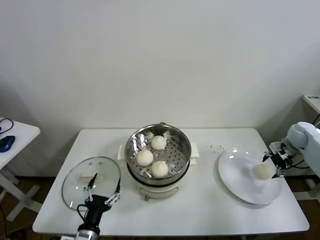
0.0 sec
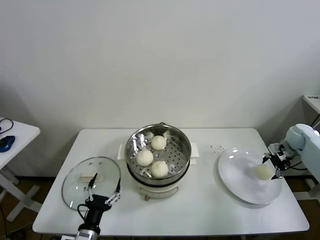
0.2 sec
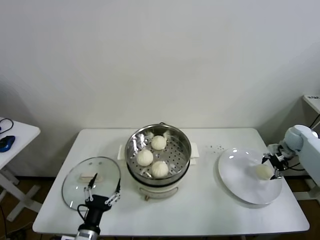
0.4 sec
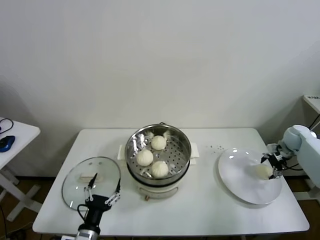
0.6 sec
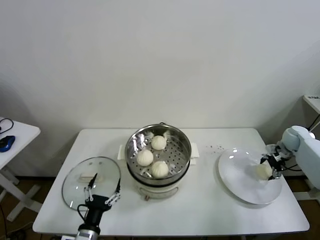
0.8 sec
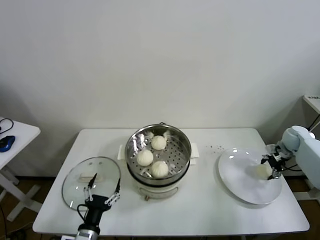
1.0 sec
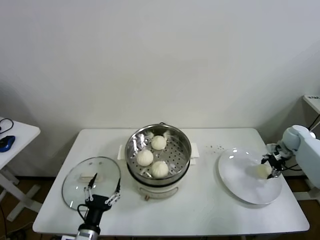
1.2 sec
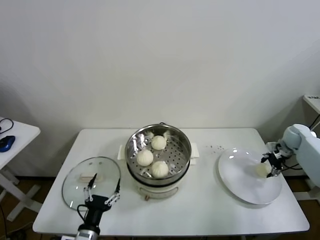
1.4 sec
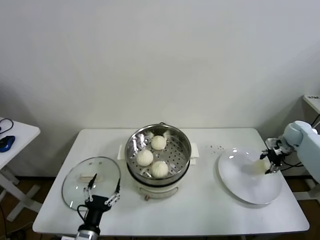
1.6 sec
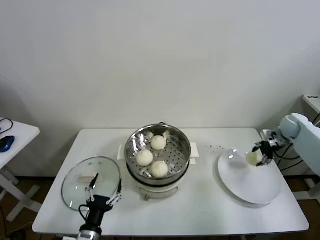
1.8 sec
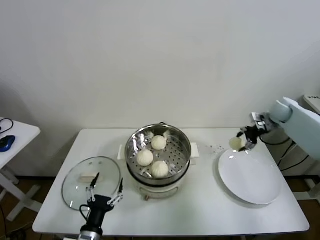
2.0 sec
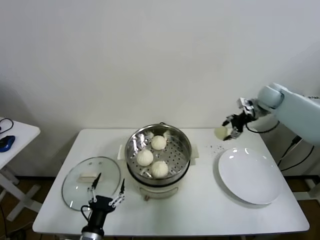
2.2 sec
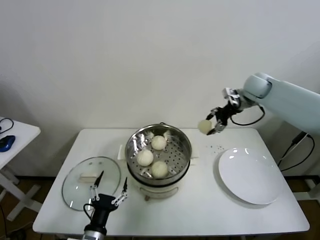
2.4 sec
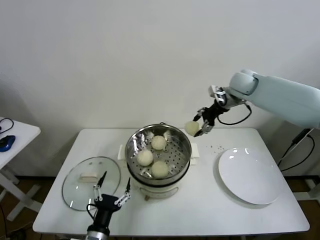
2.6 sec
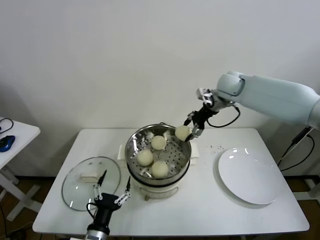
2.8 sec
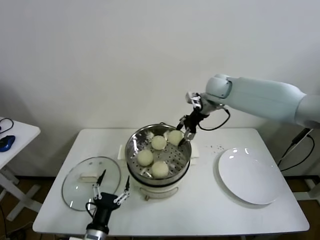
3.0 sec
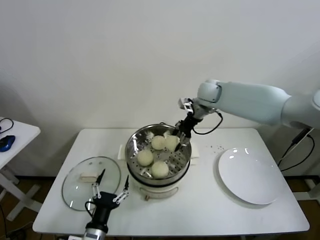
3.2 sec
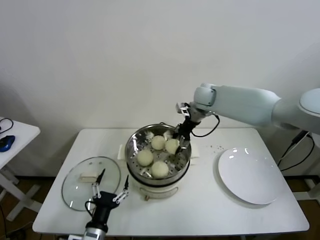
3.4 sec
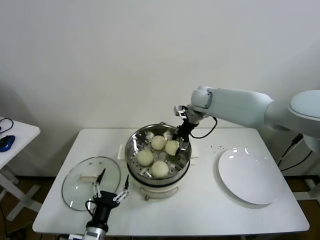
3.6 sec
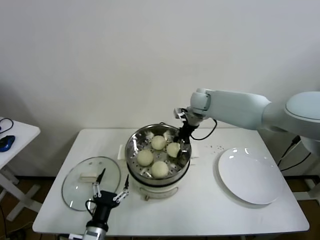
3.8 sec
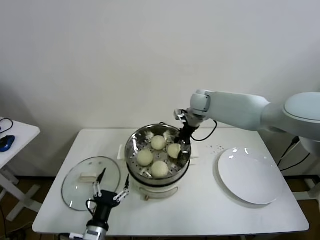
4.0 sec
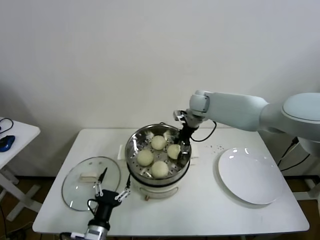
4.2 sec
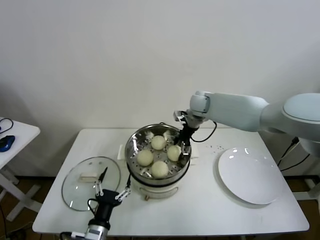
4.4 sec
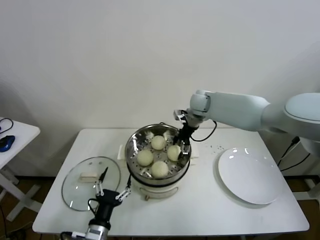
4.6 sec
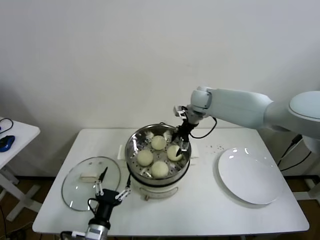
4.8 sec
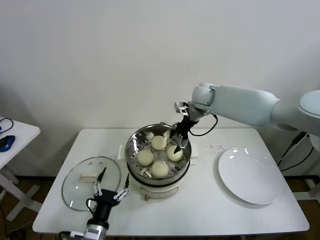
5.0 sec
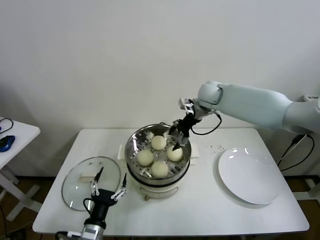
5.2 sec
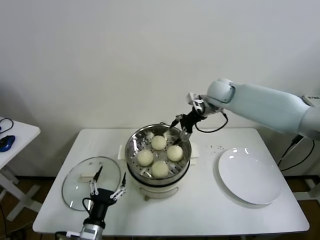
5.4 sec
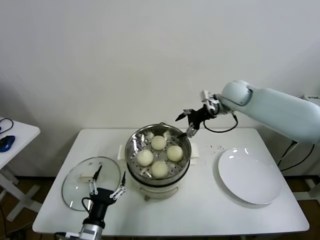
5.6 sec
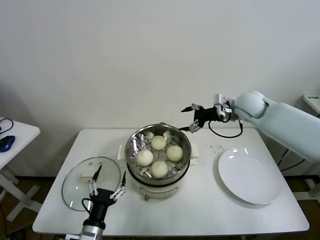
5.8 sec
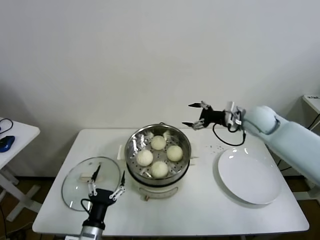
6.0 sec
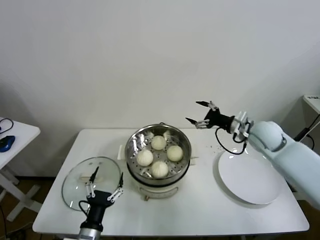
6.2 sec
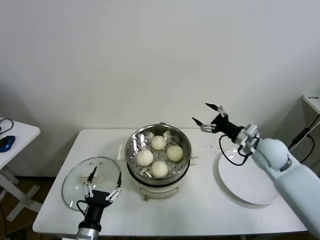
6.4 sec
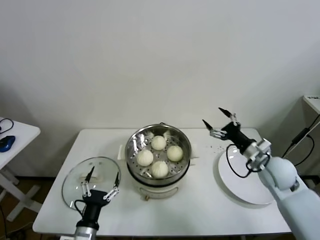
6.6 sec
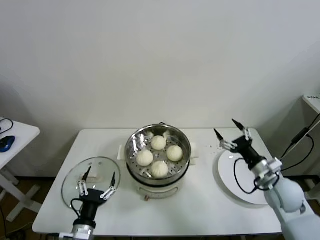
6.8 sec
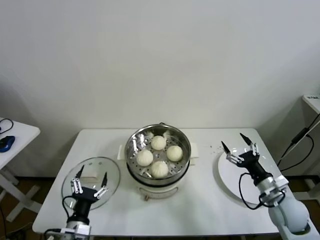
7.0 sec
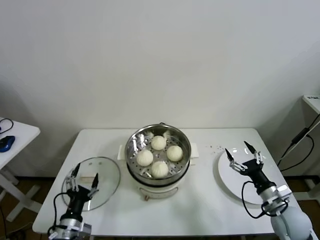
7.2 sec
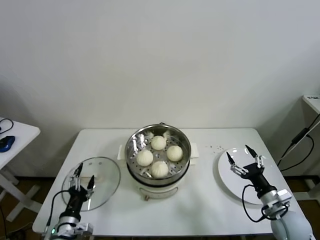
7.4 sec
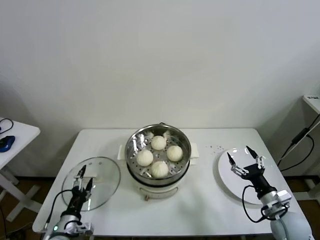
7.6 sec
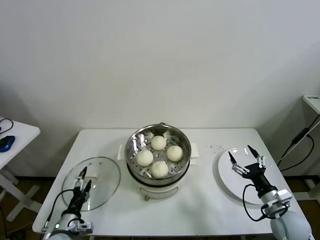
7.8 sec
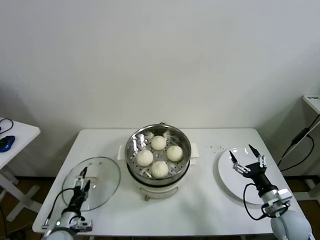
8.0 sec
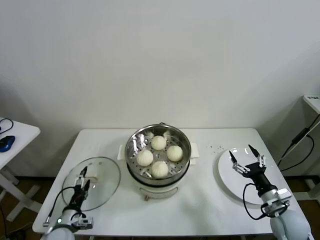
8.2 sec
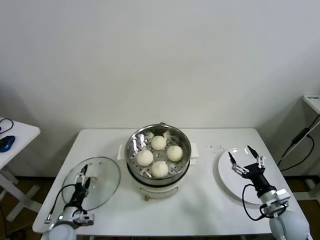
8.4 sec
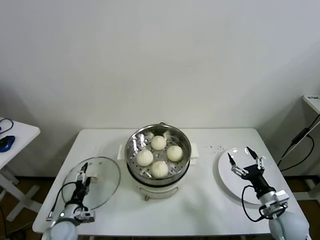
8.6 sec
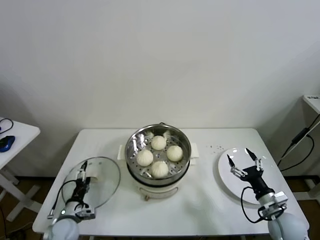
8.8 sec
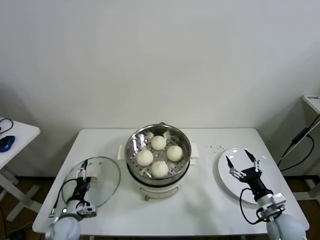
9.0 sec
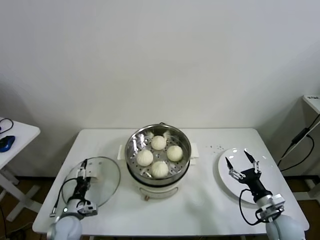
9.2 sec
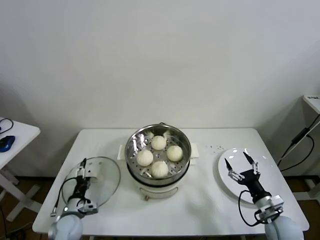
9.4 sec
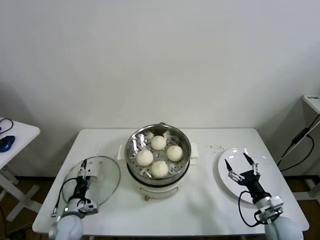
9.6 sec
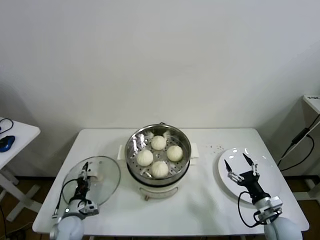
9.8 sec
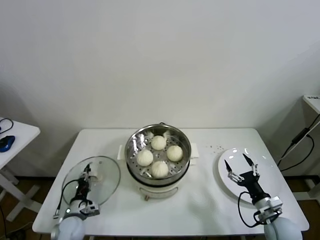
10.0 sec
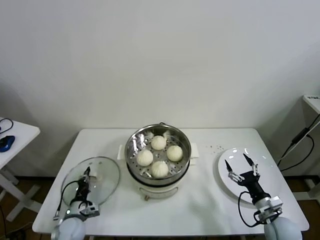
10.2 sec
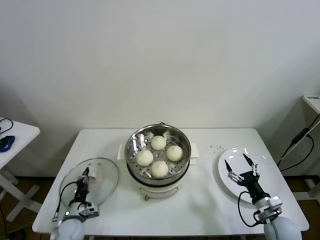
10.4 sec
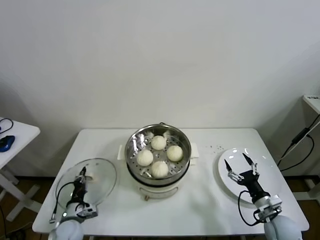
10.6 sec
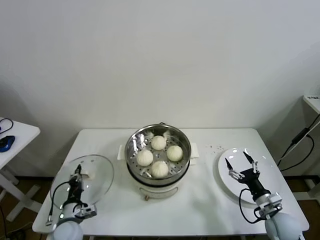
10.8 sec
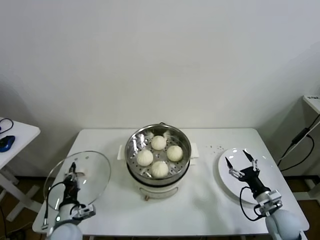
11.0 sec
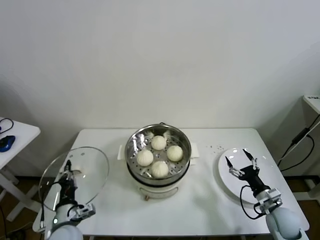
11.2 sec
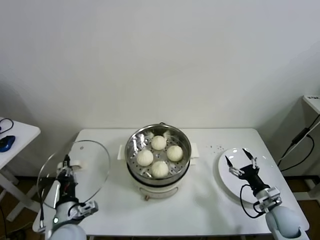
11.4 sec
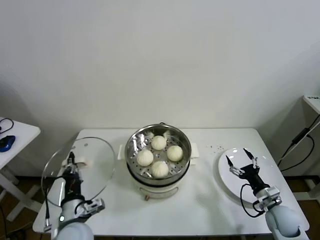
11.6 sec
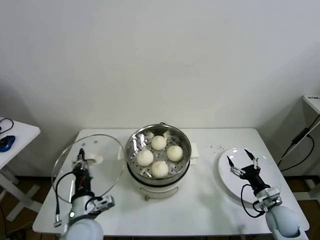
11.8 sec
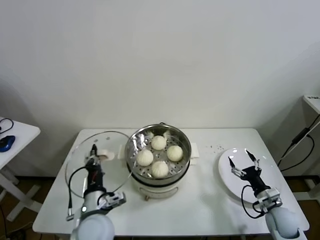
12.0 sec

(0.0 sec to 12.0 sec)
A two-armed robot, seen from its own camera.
Task of the whole recording: take steamed baozi put them in steamer.
Step, 1.2 sec - 5.0 sec: Place the baozi on the steamer with right gripper.
Step, 5.2 sec - 10.2 sec: Grasp the pot lid with left gripper.
0.0 sec - 1.6 sec: The right gripper closes.
1.6 sec - 3.0 sec: The right gripper travels to the left and upward by some 40 cm.
3.0 sec - 4.4 sec: The right gripper moves downward, roughly 5 cm, and opens its fingers.
4.4 sec - 6.0 sec: The right gripper shifts about 20 cm to the right and backward.
6.0 sec - 7.6 sec: The right gripper shifts about 35 cm backward and downward. Meanwhile the left gripper heads to the left, covering roughly 10 cm.
7.6 sec - 9.0 sec: The left gripper moves forward and downward, roughly 10 cm.
9.0 sec - 10.4 sec: The left gripper closes its fingers.
10.4 sec - 12.0 sec: The left gripper goes about 20 cm upward and to the right.

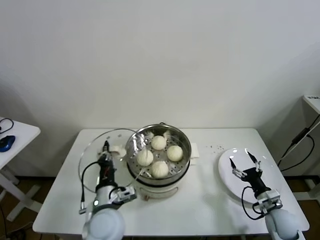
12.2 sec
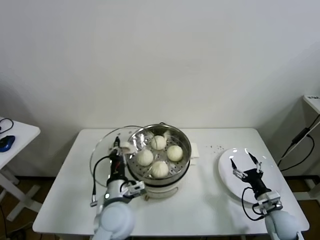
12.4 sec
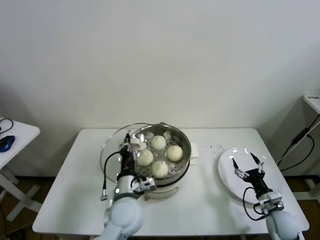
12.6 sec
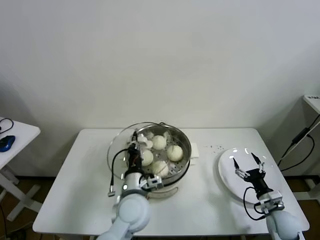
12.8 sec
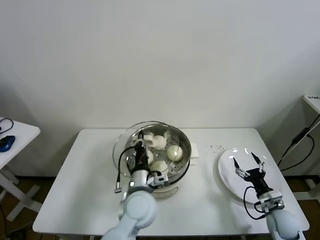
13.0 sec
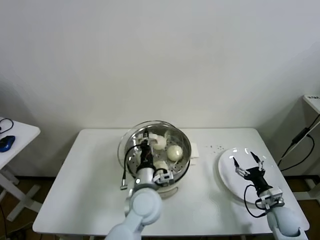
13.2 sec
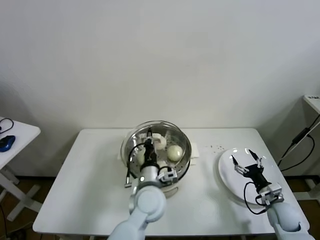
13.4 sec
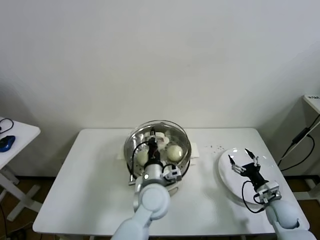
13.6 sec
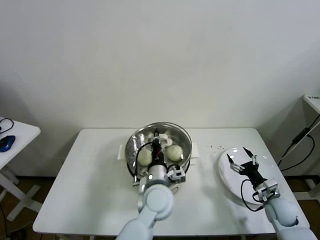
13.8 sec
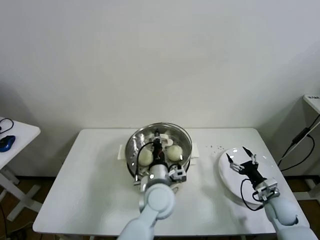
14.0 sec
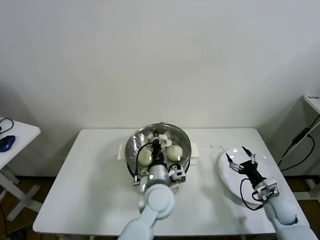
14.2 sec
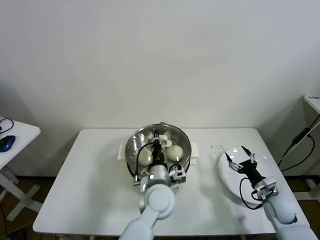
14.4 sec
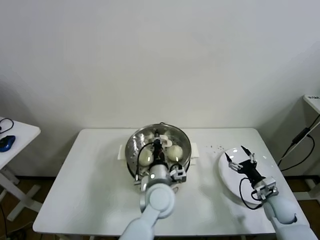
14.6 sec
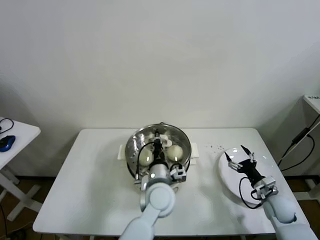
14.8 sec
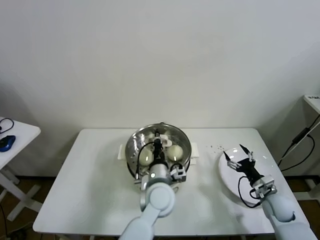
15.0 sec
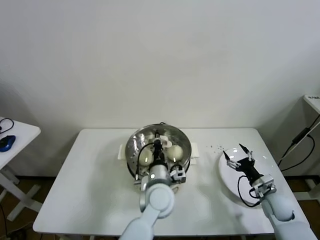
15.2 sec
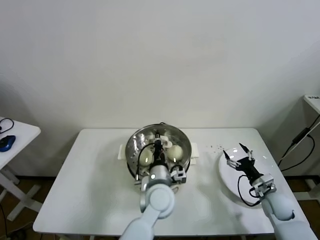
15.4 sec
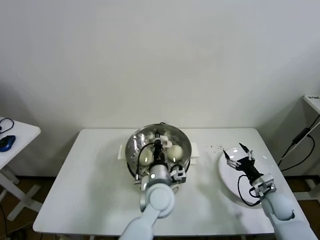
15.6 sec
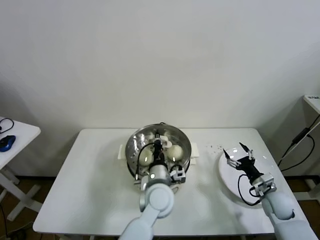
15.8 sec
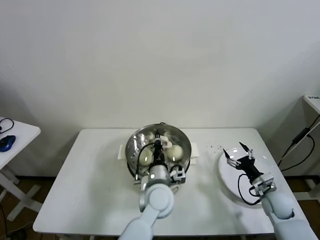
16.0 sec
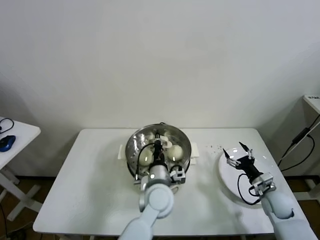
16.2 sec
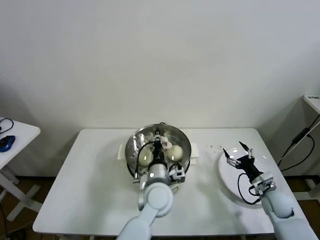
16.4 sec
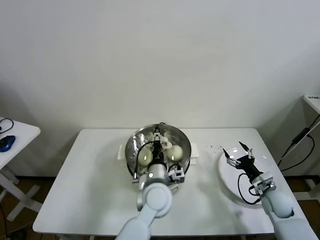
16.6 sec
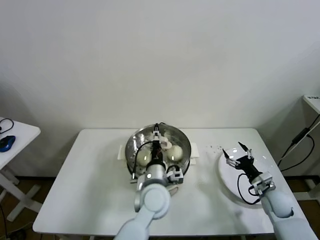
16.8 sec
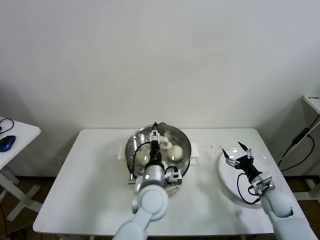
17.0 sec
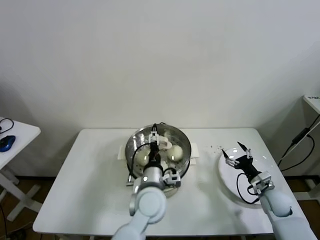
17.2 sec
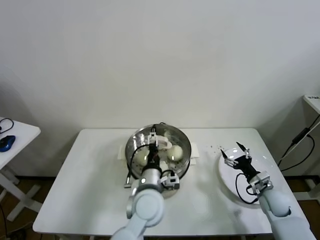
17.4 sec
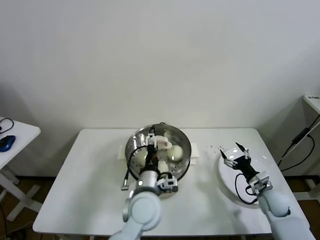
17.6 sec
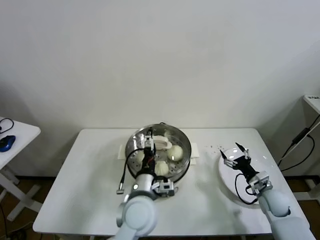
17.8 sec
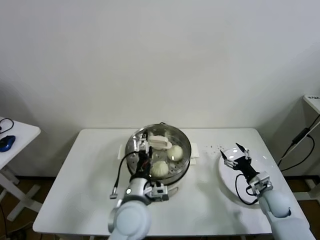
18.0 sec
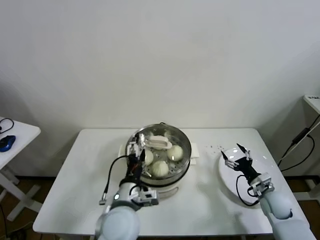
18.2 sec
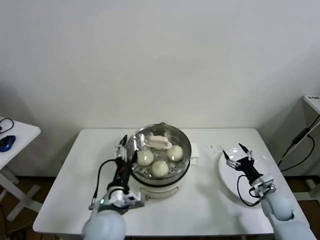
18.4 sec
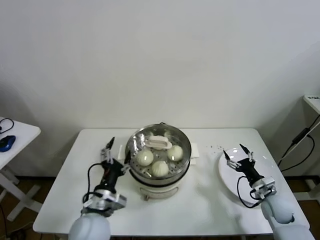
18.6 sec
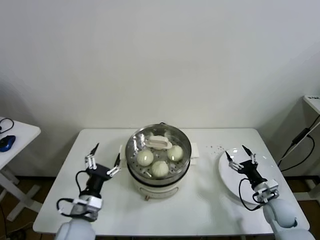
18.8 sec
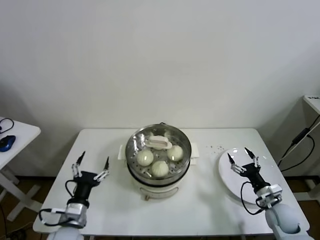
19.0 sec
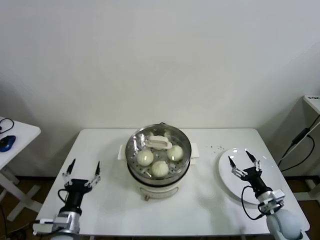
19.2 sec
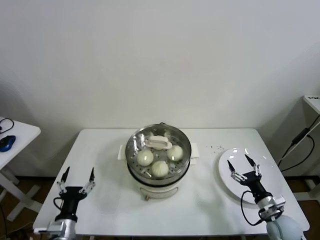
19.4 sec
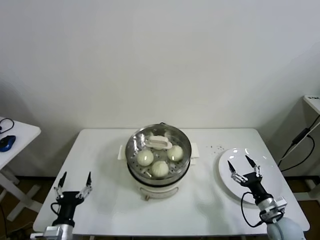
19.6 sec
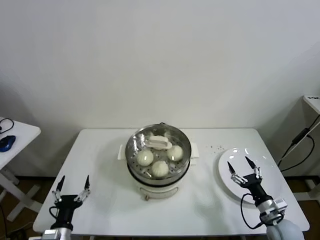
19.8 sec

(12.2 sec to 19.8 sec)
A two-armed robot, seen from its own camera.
Task of the whole recording: take steamed baozi put them in steamer.
Step, 12.2 sec - 17.4 sec: Place the pot lid on the steamer with left gripper.
12.2 sec - 13.8 sec: The left gripper moves to the right and forward, roughly 15 cm.
13.8 sec - 15.2 sec: The grippers make only small movements.
15.2 sec - 16.8 sec: The left gripper opens its fingers.
16.8 sec - 18.2 sec: The left gripper moves to the left and backward, roughly 10 cm, and opens its fingers.
18.2 sec - 19.8 sec: The left gripper travels to the left and downward by roughly 25 cm; the right gripper travels backward by about 10 cm.
